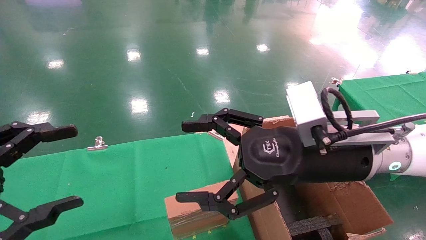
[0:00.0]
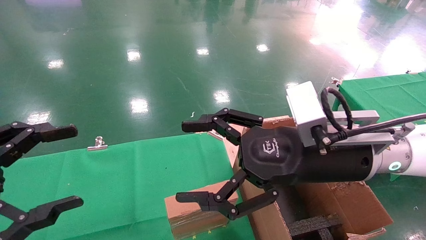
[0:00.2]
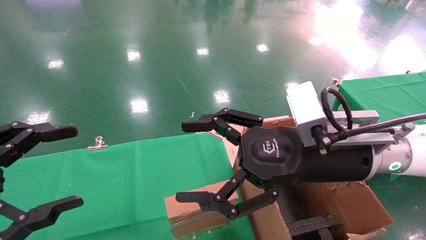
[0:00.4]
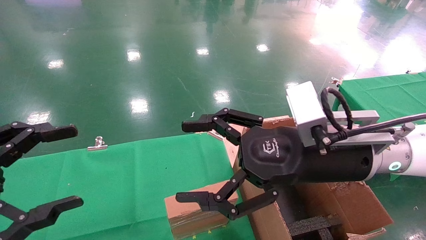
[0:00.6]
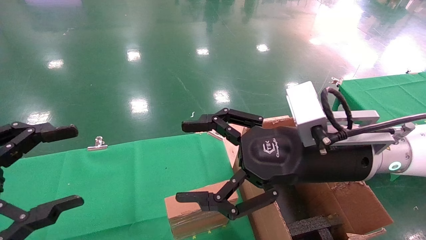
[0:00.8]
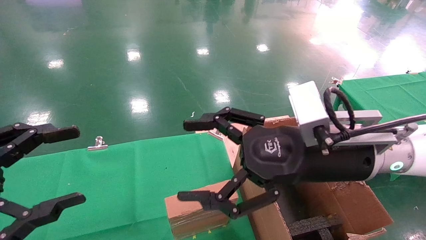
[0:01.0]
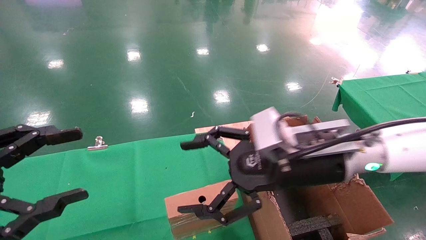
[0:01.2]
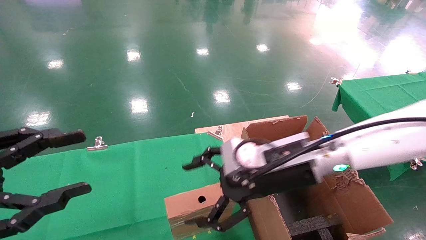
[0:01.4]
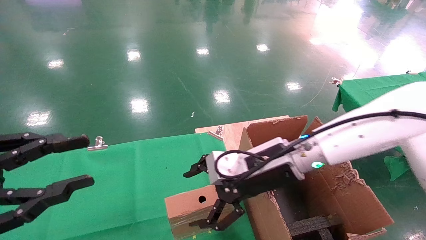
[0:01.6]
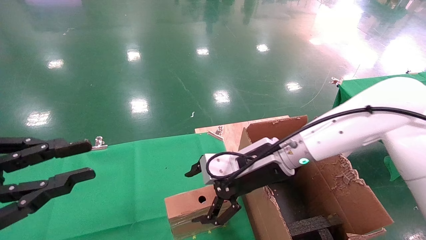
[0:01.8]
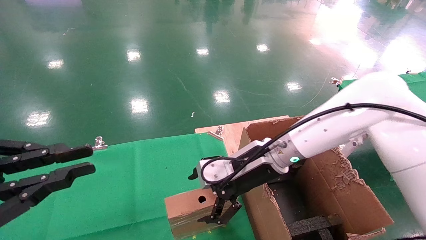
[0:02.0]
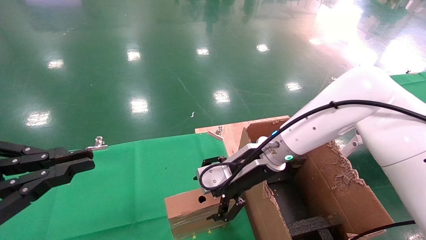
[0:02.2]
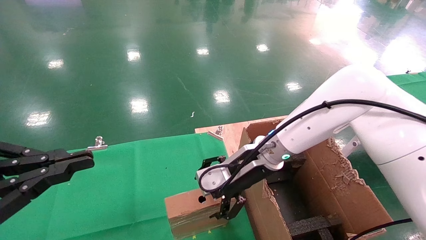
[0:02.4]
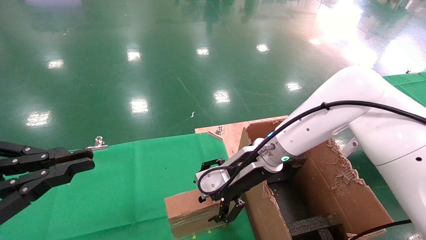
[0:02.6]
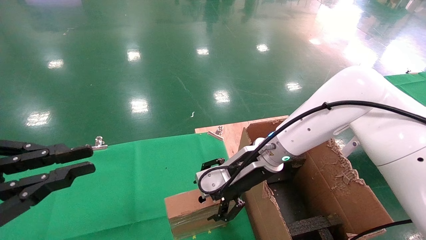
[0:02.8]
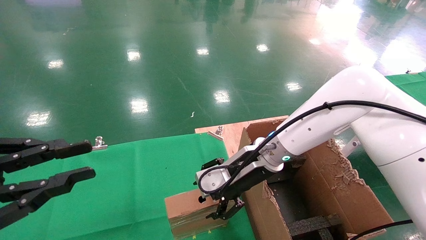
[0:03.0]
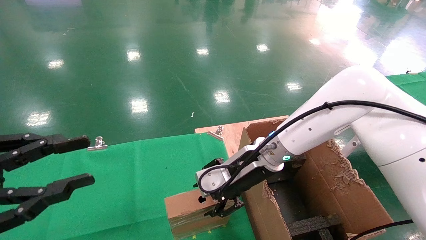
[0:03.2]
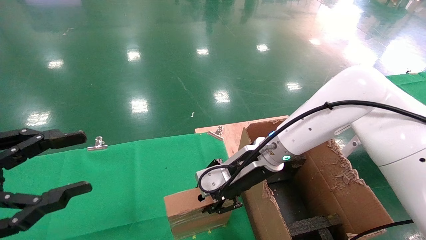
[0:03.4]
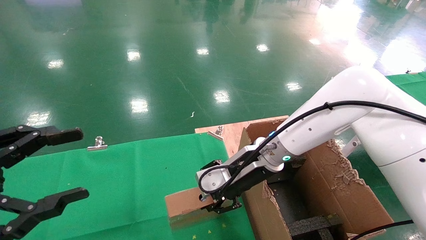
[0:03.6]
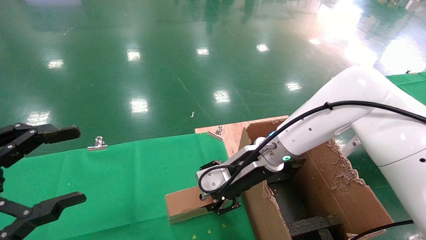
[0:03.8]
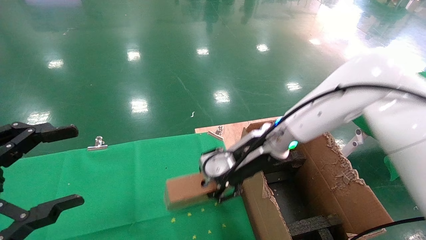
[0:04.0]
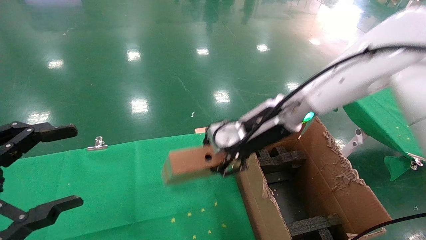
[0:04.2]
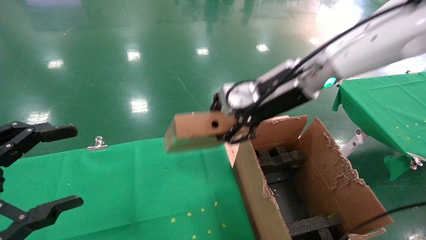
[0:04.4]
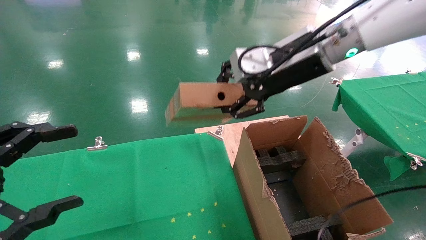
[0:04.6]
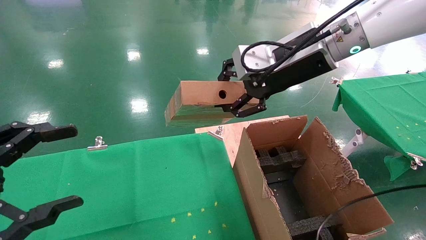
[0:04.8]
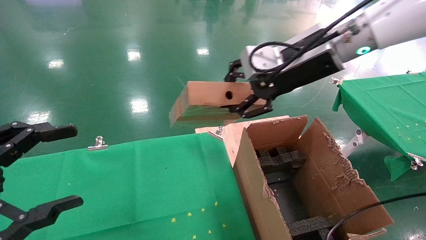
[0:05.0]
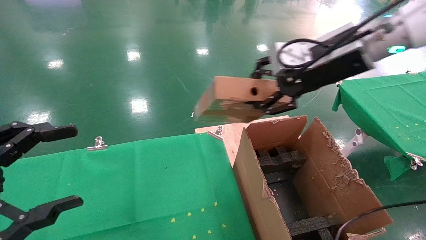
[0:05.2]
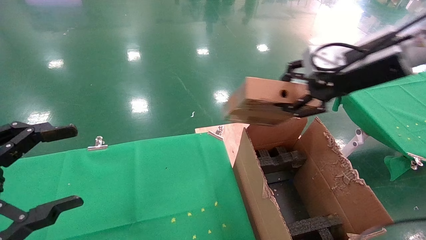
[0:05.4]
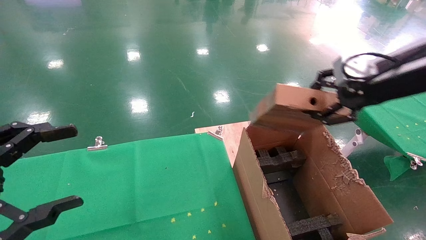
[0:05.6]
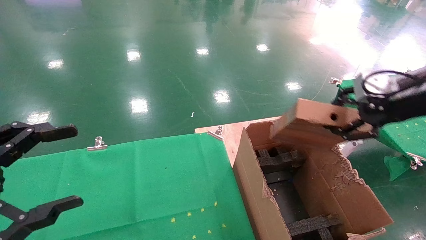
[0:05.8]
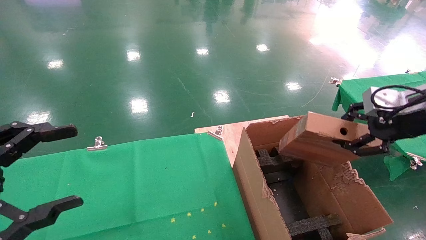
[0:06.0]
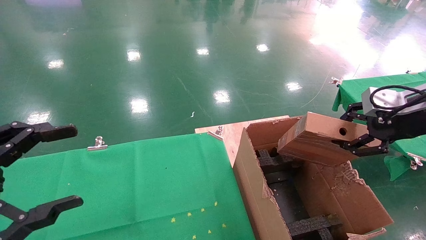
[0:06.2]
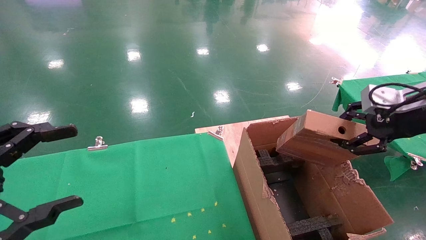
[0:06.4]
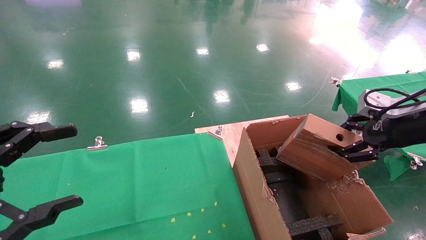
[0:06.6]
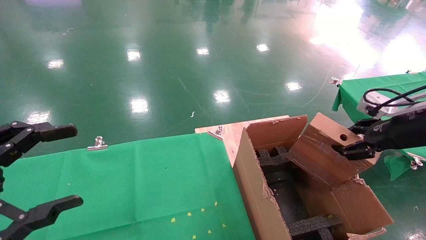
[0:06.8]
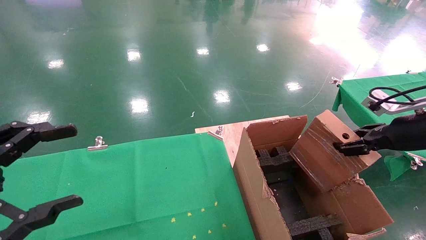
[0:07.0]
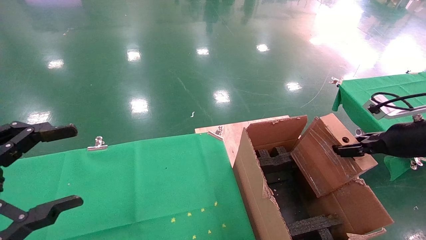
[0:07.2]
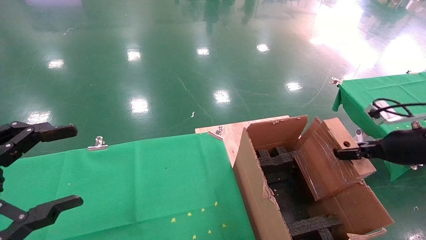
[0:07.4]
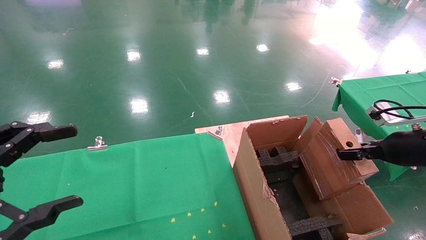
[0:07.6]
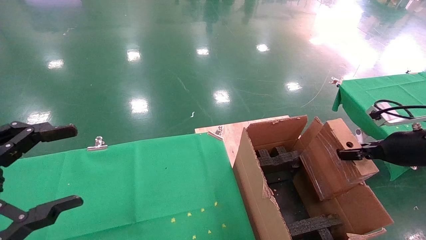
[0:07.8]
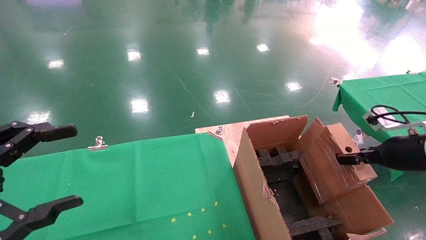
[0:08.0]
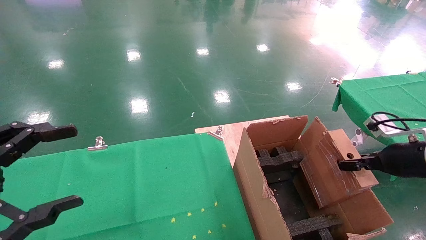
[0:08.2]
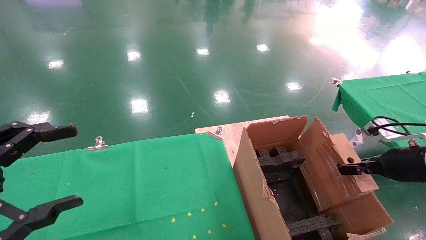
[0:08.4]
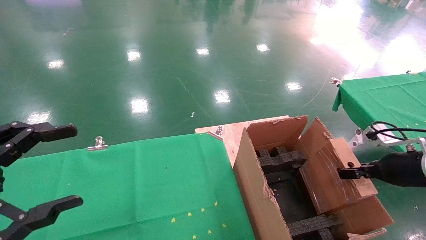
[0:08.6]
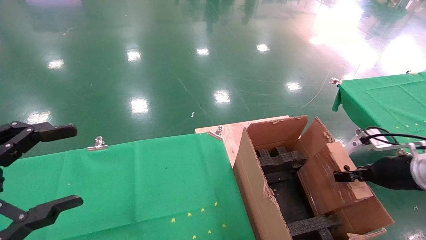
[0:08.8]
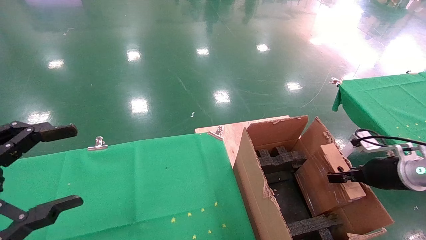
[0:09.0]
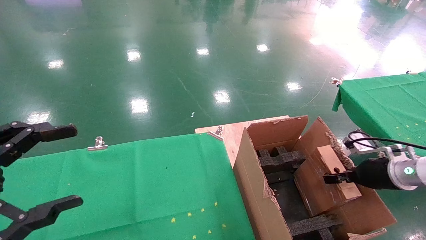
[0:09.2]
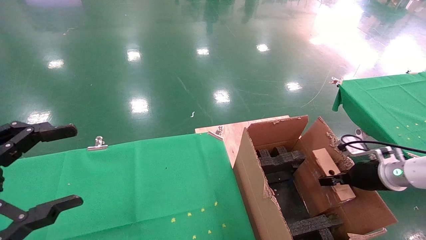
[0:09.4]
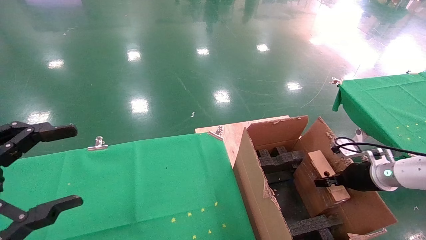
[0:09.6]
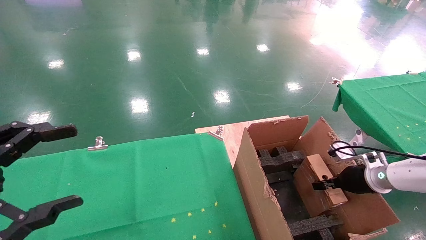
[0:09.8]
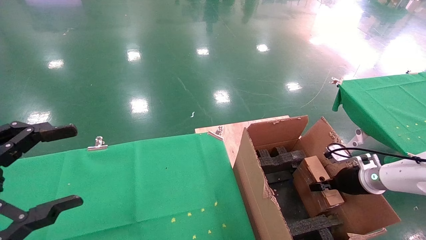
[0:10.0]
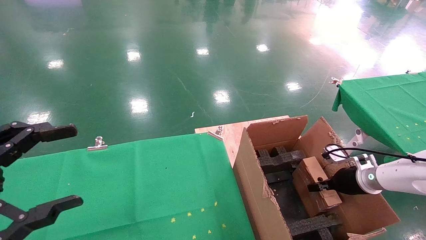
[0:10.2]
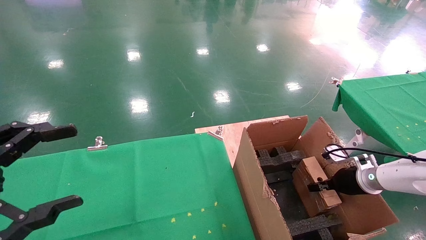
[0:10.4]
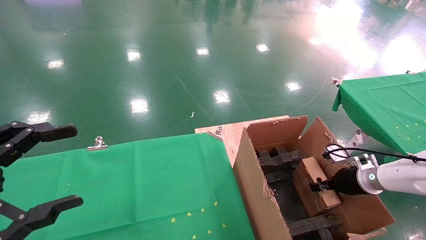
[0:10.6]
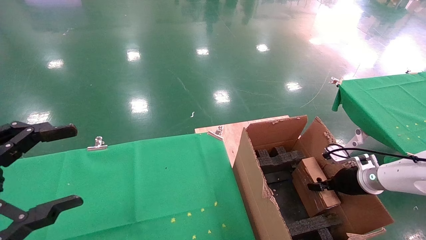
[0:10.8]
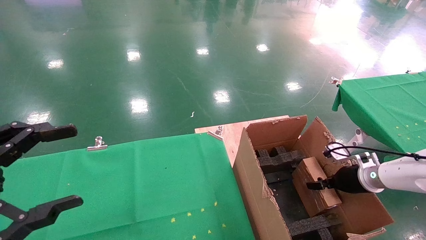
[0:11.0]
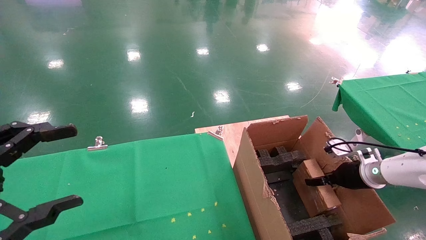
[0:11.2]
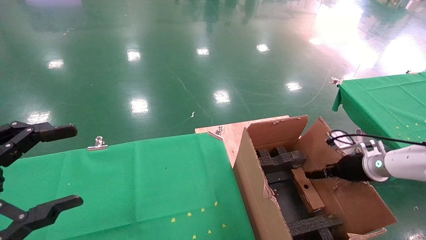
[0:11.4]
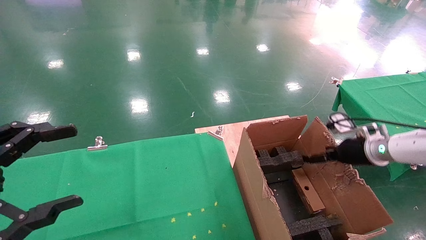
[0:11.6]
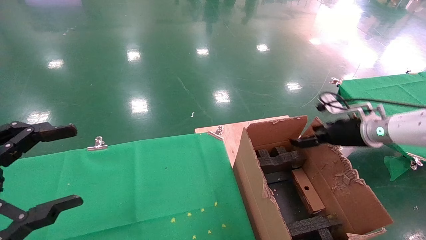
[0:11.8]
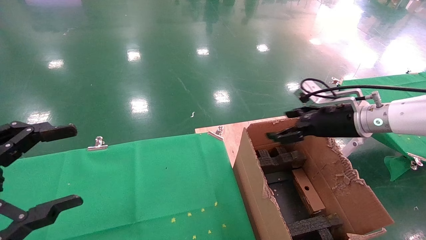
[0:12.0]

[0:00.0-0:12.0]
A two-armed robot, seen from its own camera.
Task of the whole recording: using a robotic arm to pick up a cardboard box and palace it the carton.
Step, 0:01.2 to 0:03.6: Pick up the mouse and the power cord paper box.
Step, 0:03.8 to 0:11.8: Place the mouse and the power cord paper box into the container.
0:00.0 to 0:01.6: The right gripper shifts approximately 10 cm forward and downward, while the left gripper closes up.
0:01.6 to 0:03.0: The left gripper closes up. The right gripper changes place by about 5 cm.
0:03.0 to 0:04.4: The right gripper heads upward, covering roughly 15 cm, and closes up. The left gripper opens up.
0:04.4 to 0:06.0: The right gripper heads to the right and backward, covering roughly 25 cm.
0:06.0 to 0:07.6: The right gripper goes about 10 cm downward.
0:07.6 to 0:09.0: The right gripper is displaced downward by some 10 cm.
0:09.0 to 0:10.4: The right gripper moves downward and forward, approximately 10 cm.
0:10.4 to 0:12.0: The right gripper is displaced upward and to the left by roughly 20 cm, and opens up.

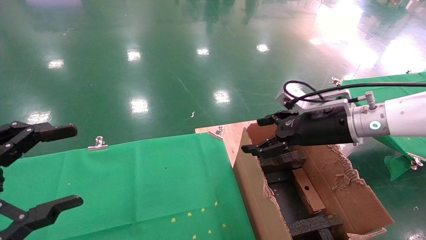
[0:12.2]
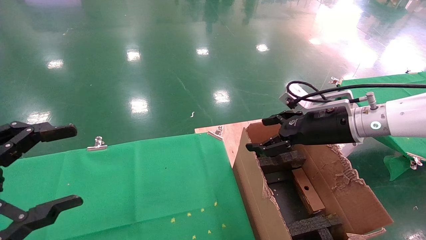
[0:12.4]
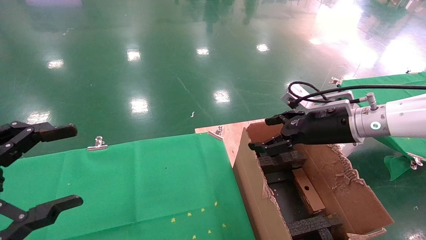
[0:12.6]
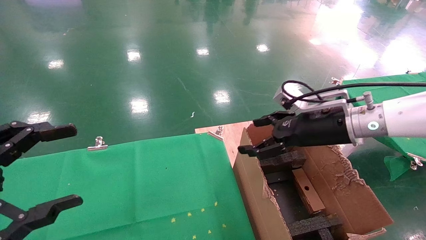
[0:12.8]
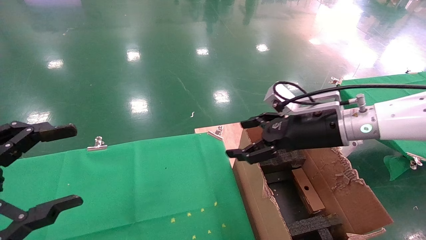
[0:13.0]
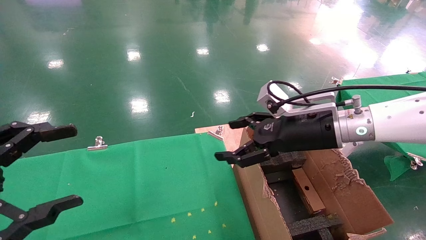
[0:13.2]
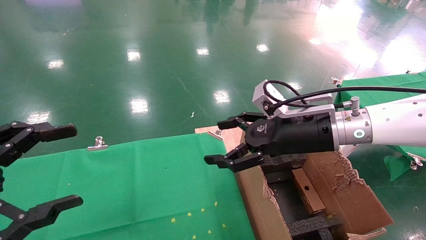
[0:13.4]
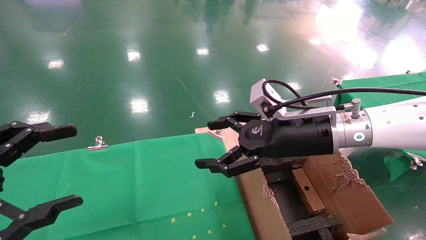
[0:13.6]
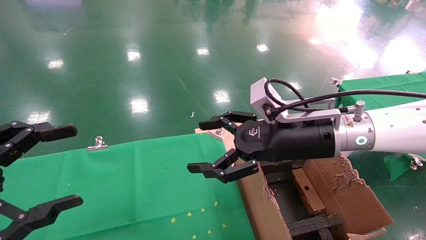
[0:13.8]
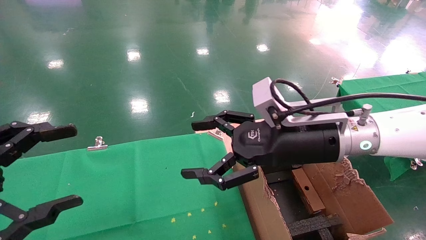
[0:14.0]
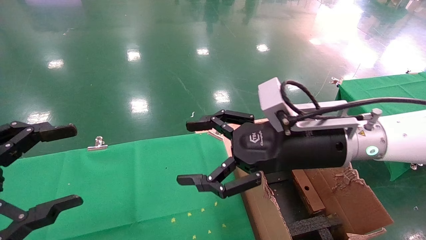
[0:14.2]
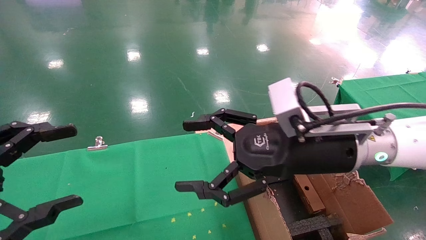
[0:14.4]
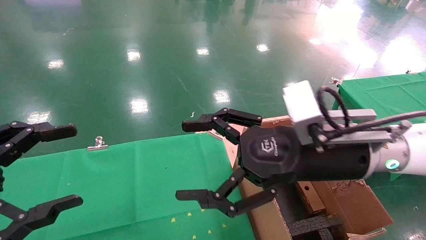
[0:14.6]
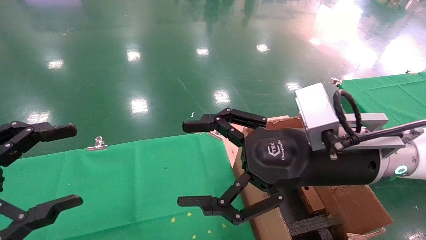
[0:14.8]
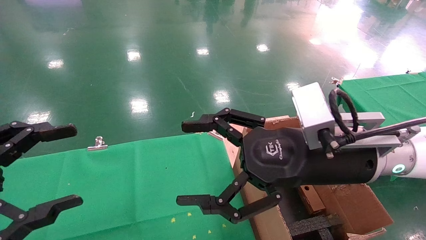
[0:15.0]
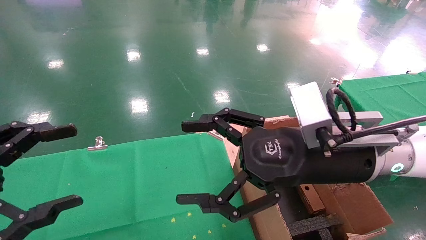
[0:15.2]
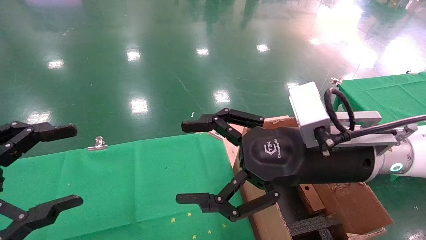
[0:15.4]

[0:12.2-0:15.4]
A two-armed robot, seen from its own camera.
Task of the whole recording: using a robotic arm to pick up a cardboard box and palace it the carton.
0:12.2 to 0:13.8: The right gripper heads to the left, covering roughly 10 cm.
0:13.8 to 0:15.4: The right gripper heads backward, covering about 5 cm.
